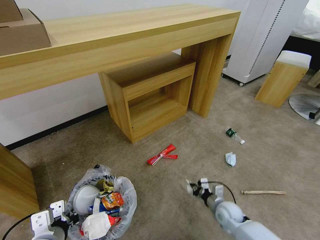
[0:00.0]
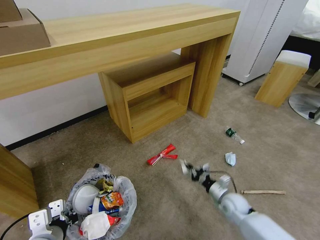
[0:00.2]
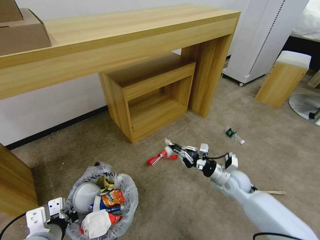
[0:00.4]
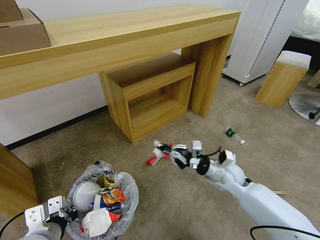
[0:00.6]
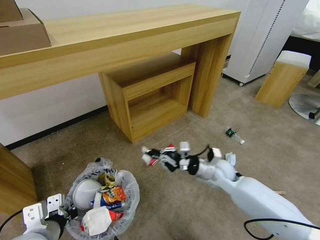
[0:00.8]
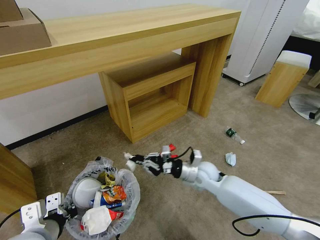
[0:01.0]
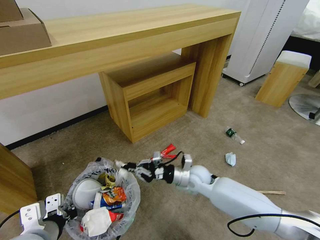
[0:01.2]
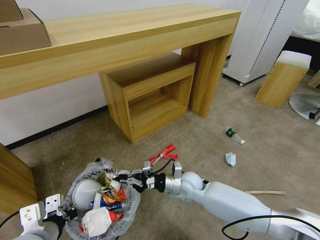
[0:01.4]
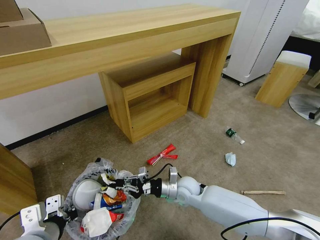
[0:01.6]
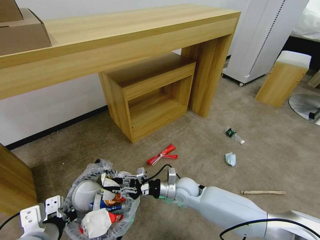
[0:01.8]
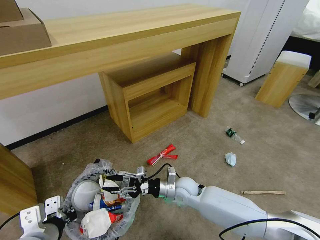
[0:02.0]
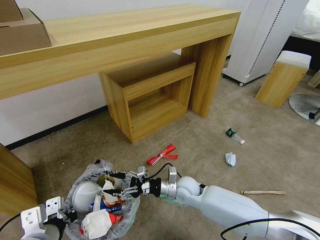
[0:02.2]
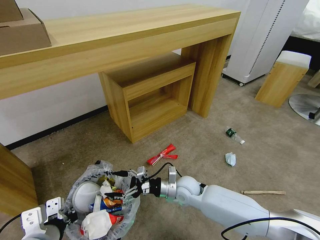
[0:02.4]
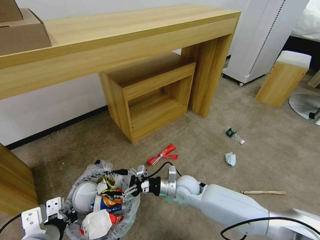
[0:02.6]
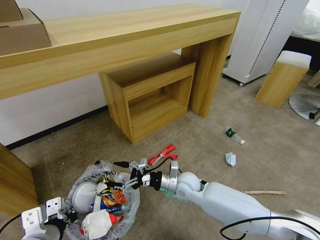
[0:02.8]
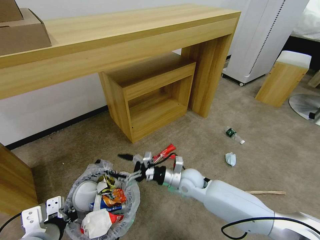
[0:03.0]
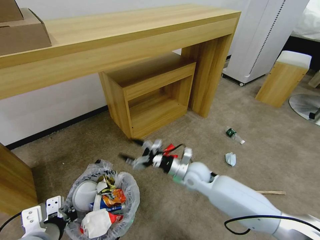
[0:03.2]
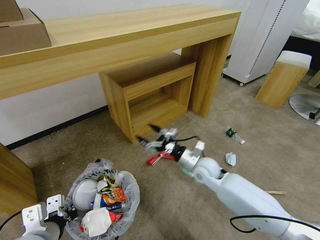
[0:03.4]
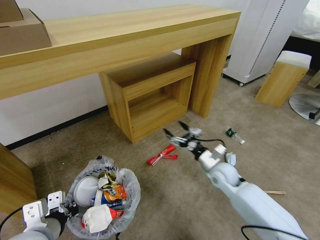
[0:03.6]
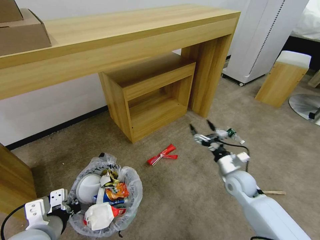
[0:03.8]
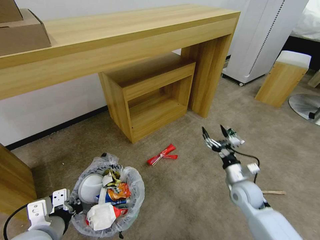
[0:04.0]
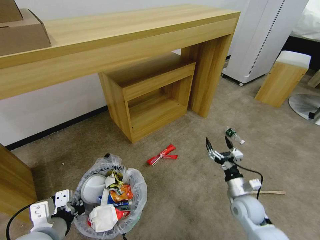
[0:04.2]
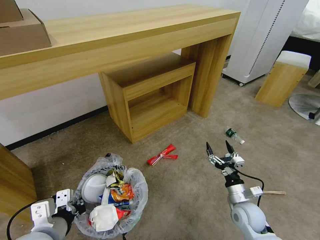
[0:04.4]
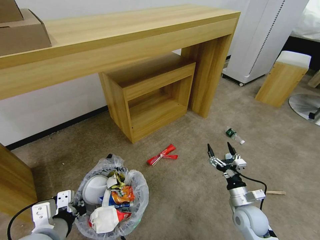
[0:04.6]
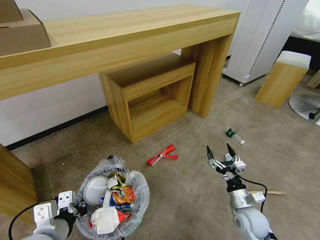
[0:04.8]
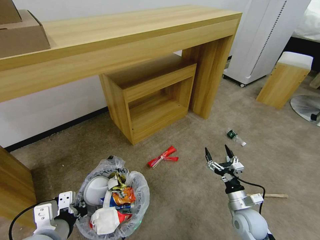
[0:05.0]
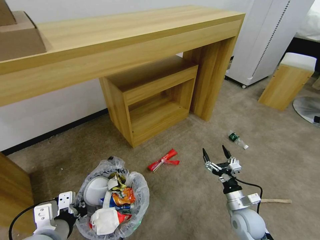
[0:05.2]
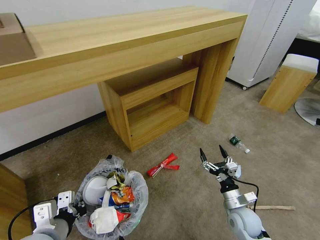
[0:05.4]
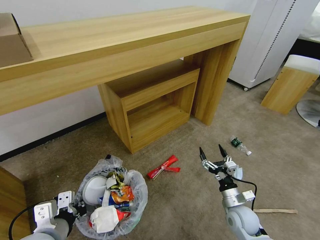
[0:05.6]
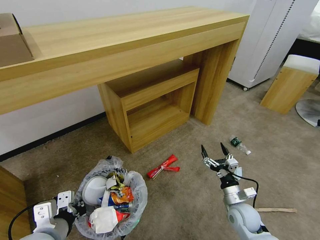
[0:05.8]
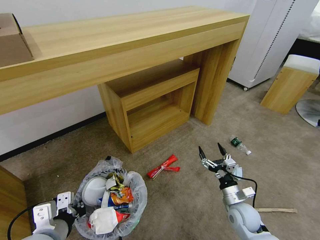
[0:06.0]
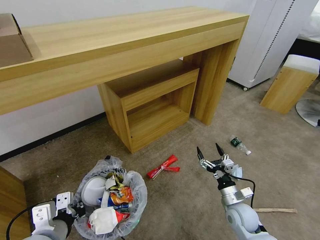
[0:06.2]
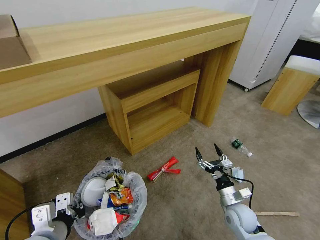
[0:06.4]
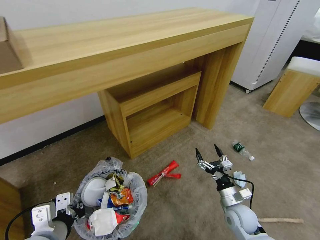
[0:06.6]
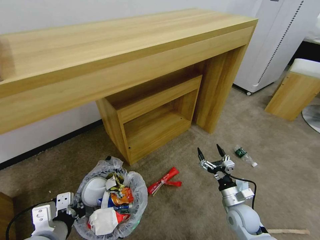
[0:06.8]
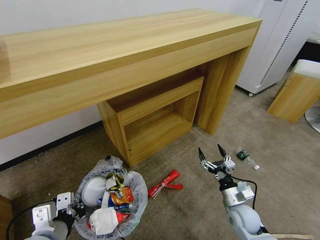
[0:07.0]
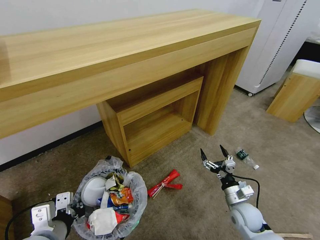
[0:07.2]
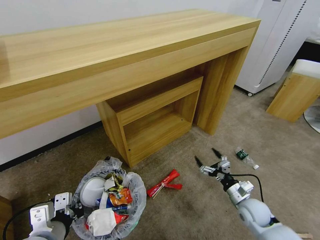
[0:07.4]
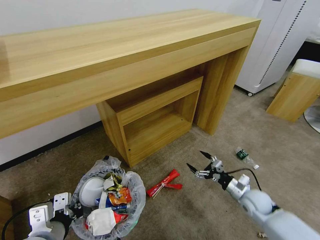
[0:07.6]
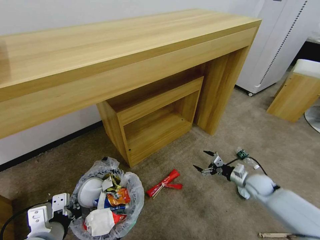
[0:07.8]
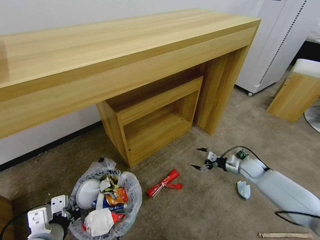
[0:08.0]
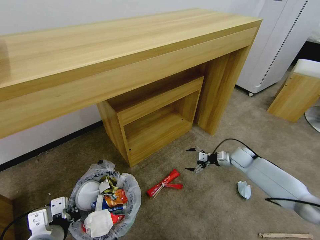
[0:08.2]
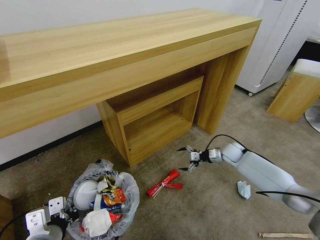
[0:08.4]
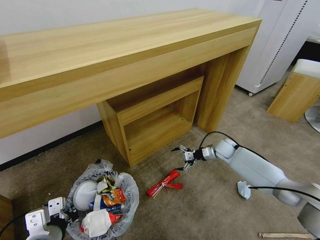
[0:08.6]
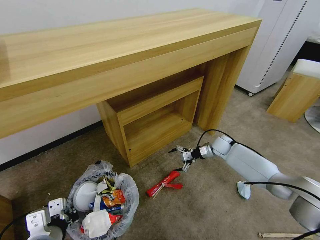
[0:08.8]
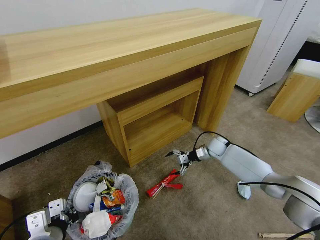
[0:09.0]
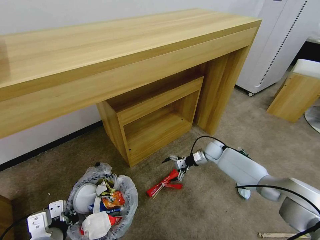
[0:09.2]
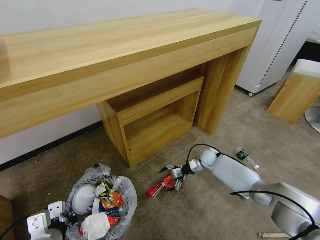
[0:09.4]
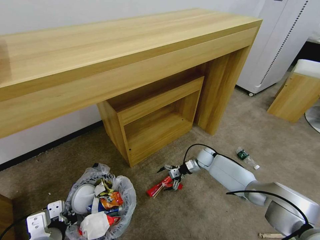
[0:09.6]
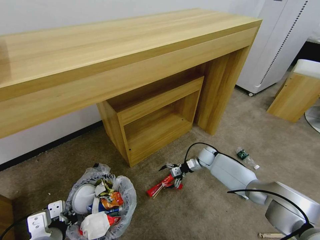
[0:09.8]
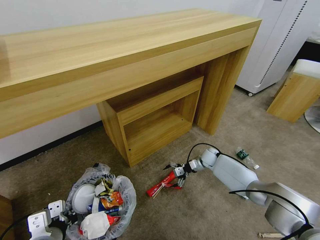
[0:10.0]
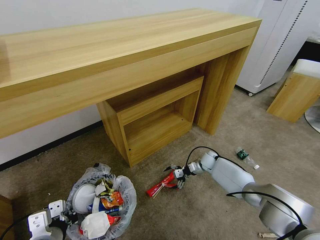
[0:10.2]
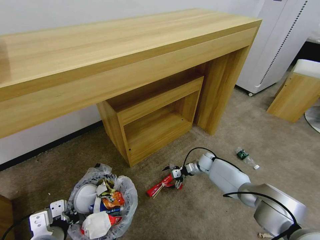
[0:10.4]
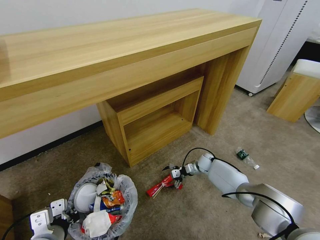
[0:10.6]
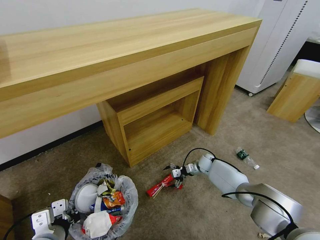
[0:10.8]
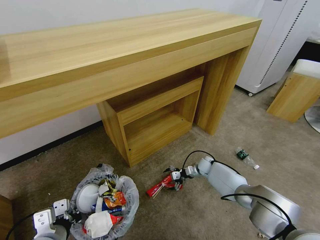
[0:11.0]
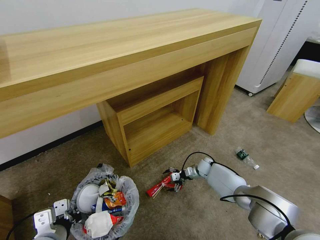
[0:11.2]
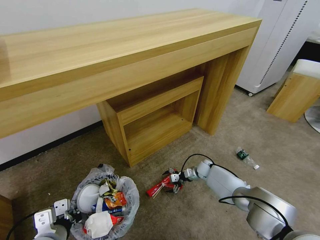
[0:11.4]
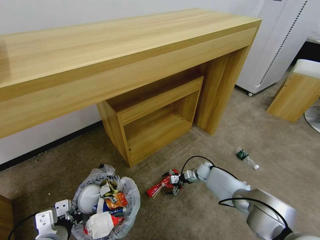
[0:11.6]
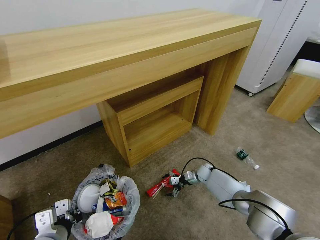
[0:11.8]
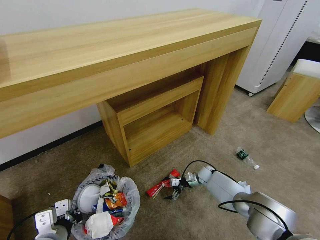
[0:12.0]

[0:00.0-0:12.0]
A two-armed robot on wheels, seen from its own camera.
Task of the whole recording: Pick up the trash bin and place the garbage on the floor into it.
0:00.0 to 0:01.6: The right gripper is displaced to the left and upward by some 20 cm.
0:01.6 to 0:03.0: The right gripper opens its fingers.
0:03.0 to 0:04.4: The right gripper shifts roughly 20 cm to the right and backward.
0:06.0 to 0:07.6: The right gripper goes some 10 cm to the right and forward.
0:07.6 to 0:09.0: The right gripper is displaced forward by about 25 cm.
0:09.0 to 0:10.4: The right gripper goes roughly 10 cm downward.
0:10.4 to 0:12.0: The right gripper moves downward, some 5 cm.

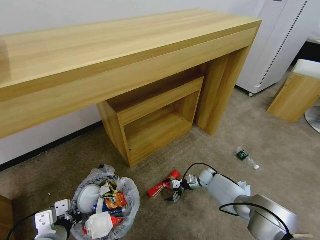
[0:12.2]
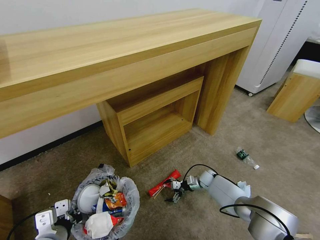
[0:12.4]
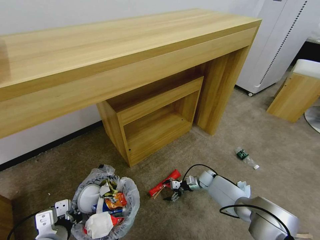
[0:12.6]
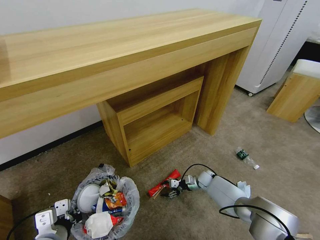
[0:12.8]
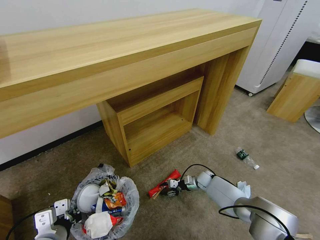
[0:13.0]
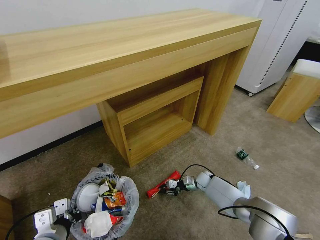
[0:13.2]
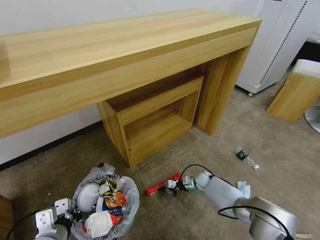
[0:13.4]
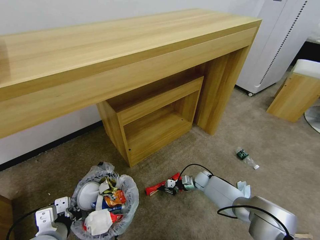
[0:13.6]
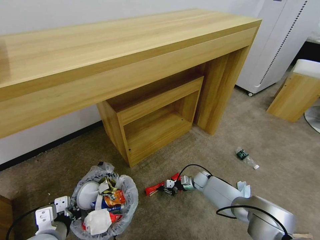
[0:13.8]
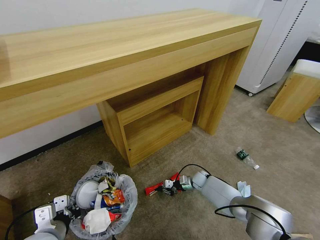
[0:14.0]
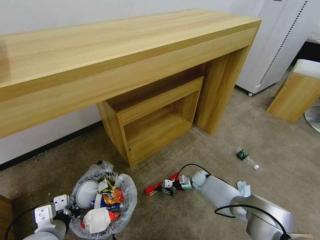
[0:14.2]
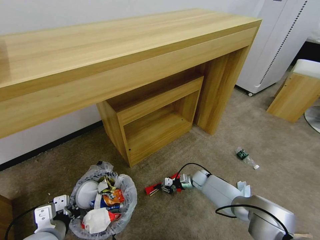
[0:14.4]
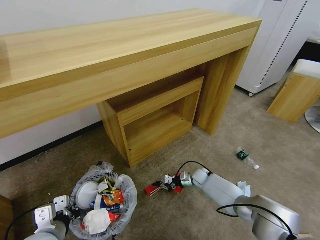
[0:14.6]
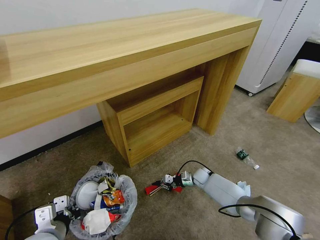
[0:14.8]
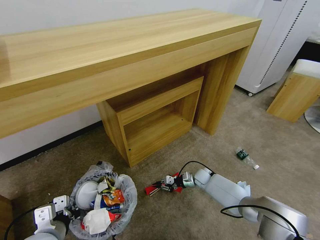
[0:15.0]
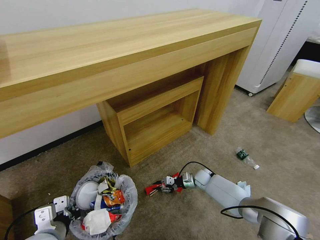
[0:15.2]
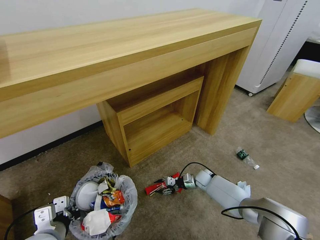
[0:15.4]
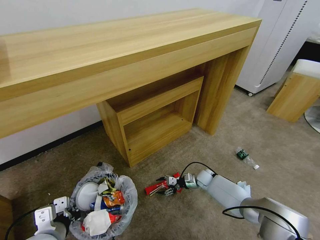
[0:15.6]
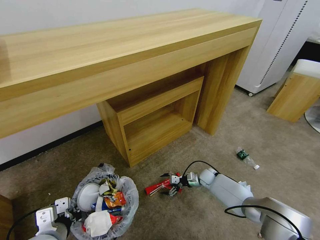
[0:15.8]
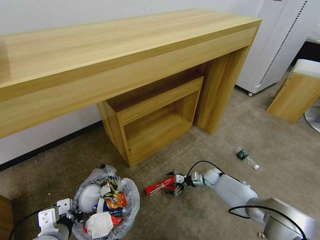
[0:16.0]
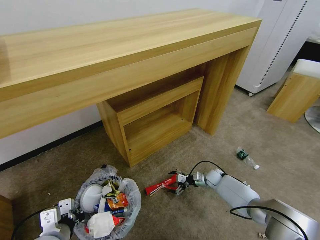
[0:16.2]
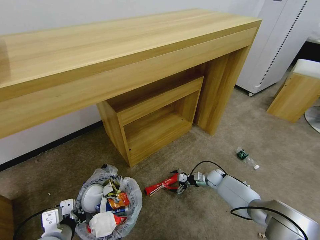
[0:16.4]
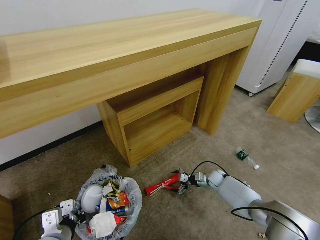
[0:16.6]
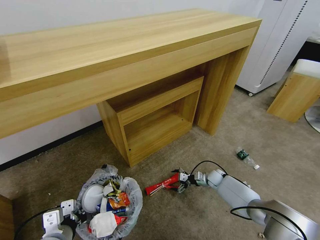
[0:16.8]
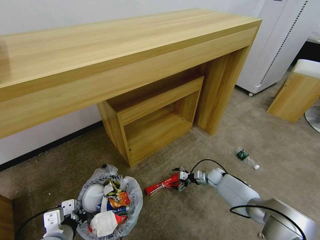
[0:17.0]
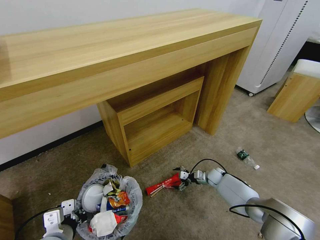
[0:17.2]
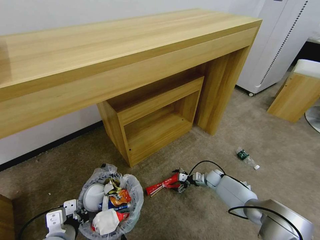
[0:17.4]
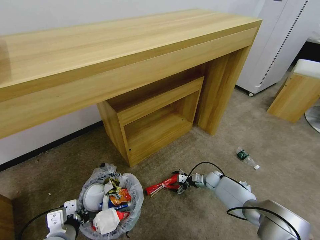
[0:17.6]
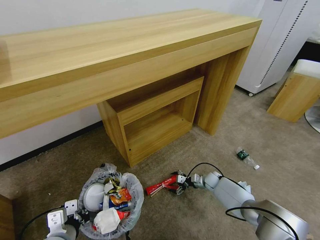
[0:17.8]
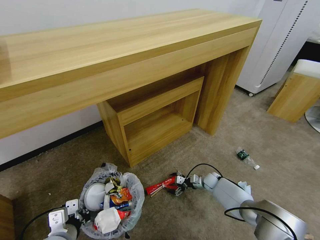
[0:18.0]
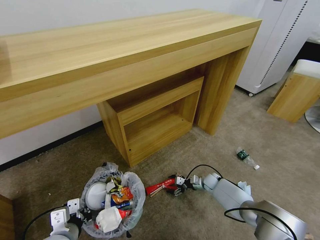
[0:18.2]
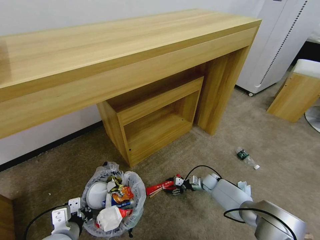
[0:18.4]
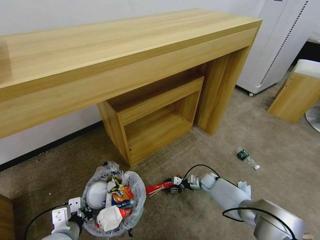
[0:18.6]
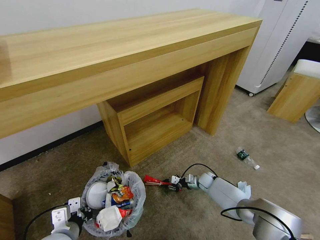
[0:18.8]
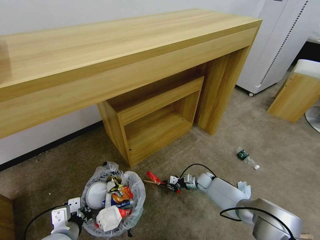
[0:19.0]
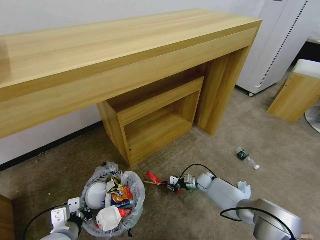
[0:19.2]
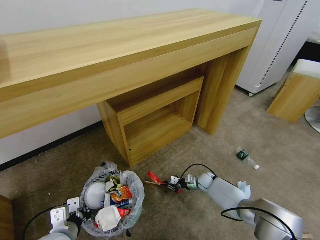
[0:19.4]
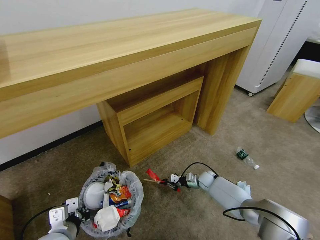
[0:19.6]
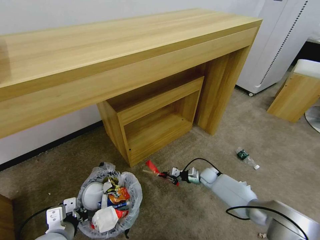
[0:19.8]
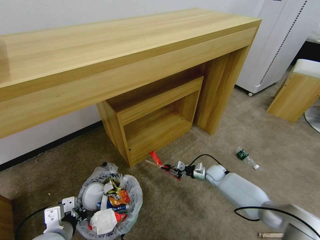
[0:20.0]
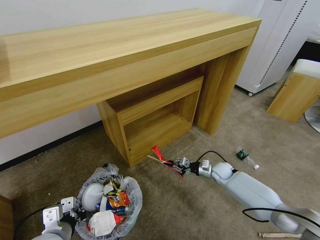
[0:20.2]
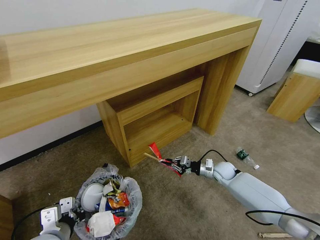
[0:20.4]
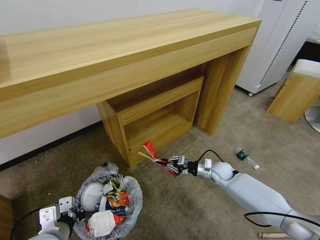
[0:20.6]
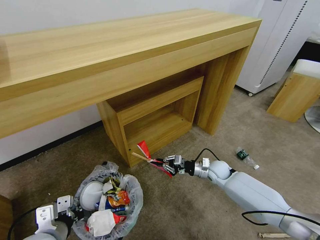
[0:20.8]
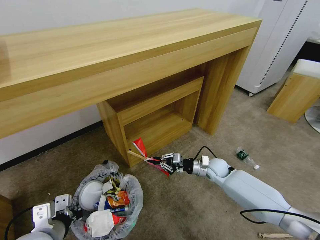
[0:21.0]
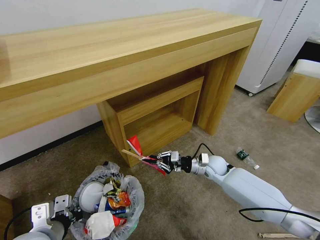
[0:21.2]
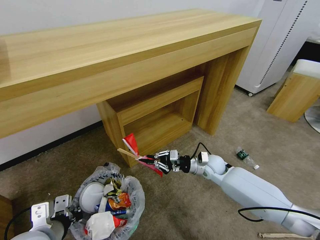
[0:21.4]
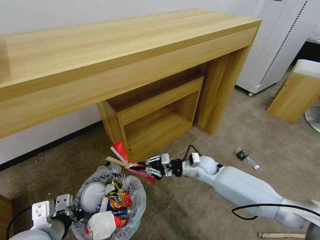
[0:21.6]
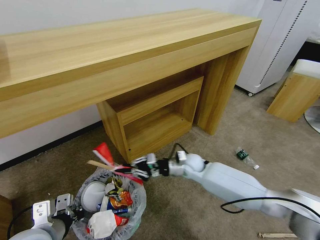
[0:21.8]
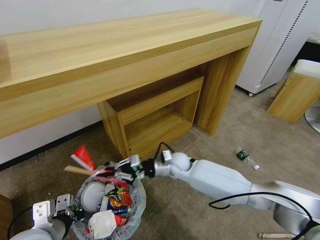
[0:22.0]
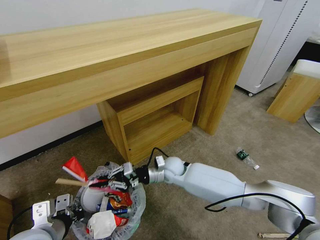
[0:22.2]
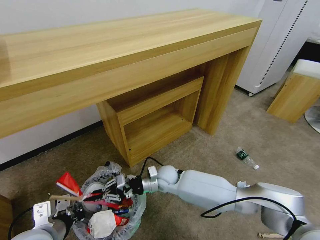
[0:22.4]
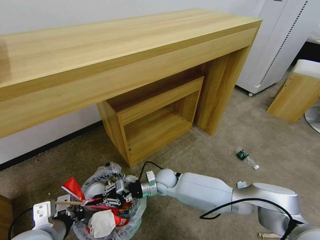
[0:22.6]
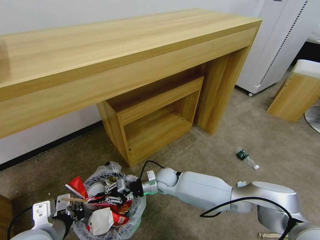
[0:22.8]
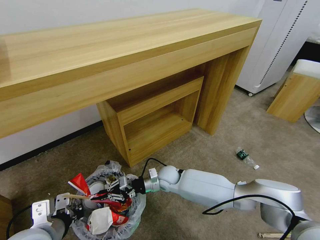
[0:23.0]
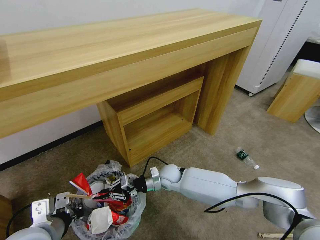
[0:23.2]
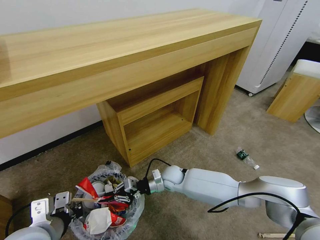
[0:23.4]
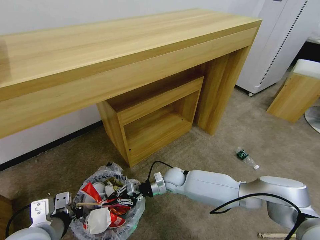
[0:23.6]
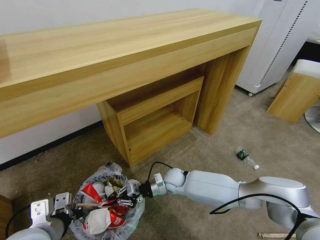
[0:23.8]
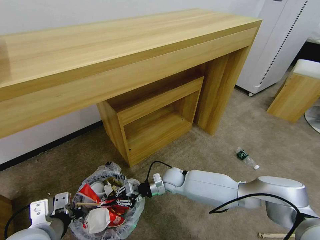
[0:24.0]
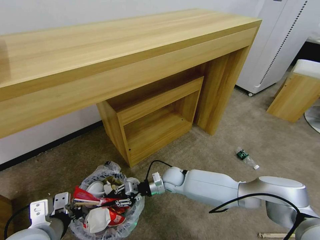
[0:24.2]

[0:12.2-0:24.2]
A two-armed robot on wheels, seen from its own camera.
Task of the whole recording: Pick up the trash bin and place the garbage on the floor into it.
0:12.2 to 0:13.8: The right gripper closes up.
0:13.8 to 0:15.2: The grippers stay close to where they were, moving slightly.
0:15.2 to 0:16.6: The right gripper heads to the right, covering roughly 5 cm, and opens its fingers.
0:16.6 to 0:18.2: The grippers move only a little.
0:18.2 to 0:19.8: The right gripper closes its fingers.
0:19.8 to 0:21.2: The right gripper travels upward by some 15 cm. Meanwhile the left gripper is displaced upward by about 5 cm.
0:21.2 to 0:22.6: The right gripper shifts approximately 20 cm to the left.
0:22.6 to 0:24.2: There are only small adjustments of the grippers.
